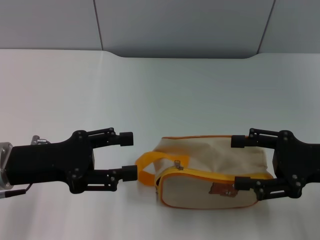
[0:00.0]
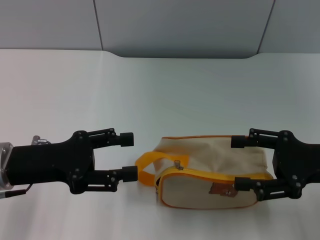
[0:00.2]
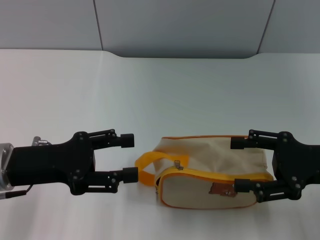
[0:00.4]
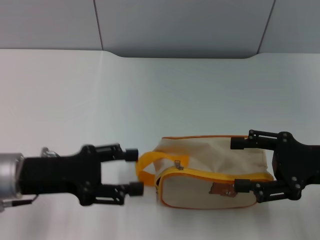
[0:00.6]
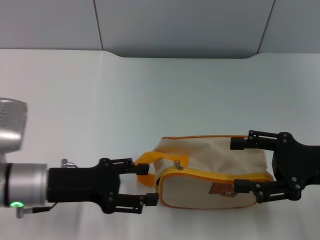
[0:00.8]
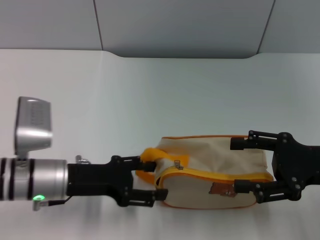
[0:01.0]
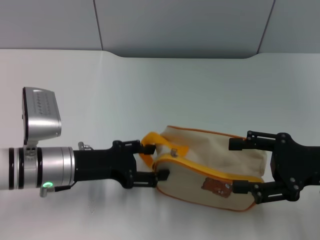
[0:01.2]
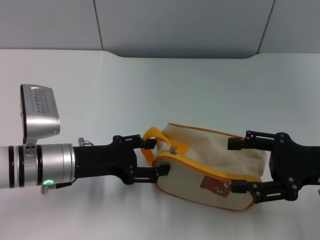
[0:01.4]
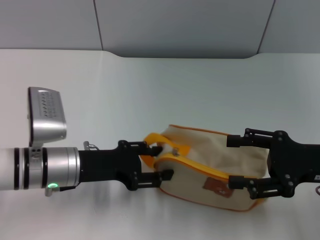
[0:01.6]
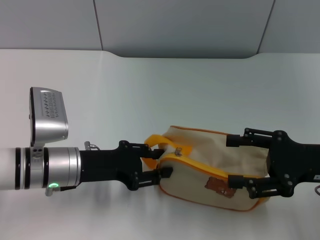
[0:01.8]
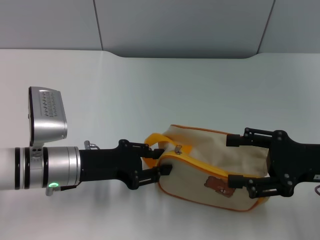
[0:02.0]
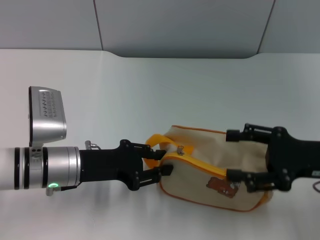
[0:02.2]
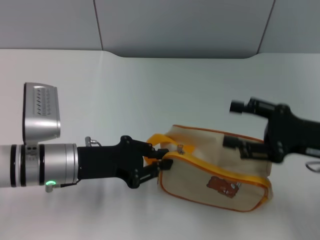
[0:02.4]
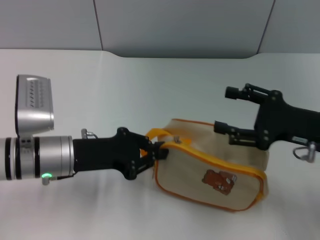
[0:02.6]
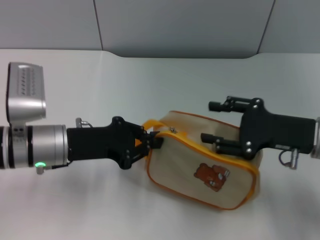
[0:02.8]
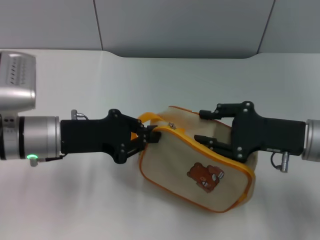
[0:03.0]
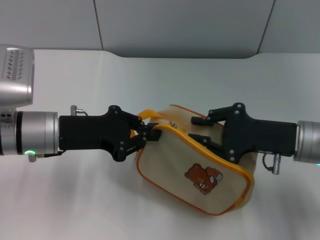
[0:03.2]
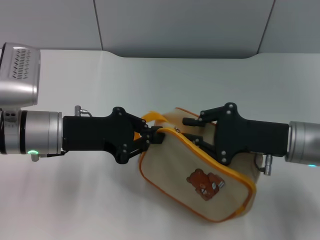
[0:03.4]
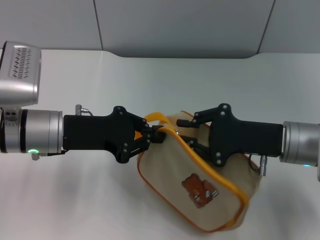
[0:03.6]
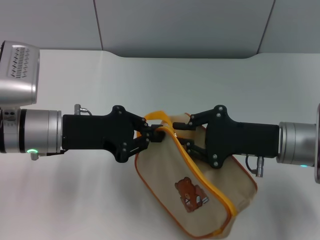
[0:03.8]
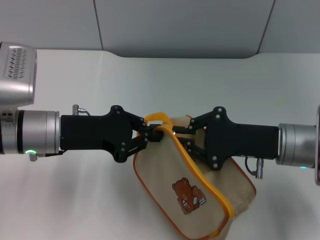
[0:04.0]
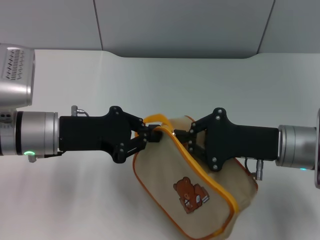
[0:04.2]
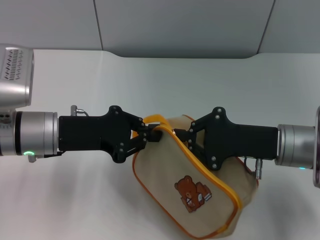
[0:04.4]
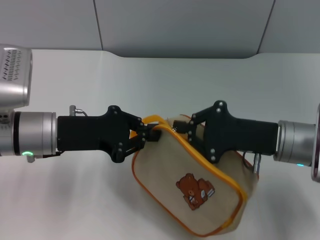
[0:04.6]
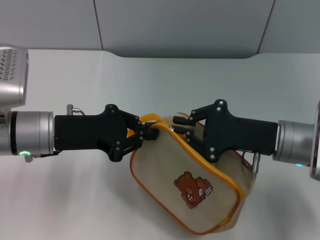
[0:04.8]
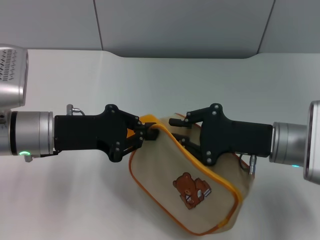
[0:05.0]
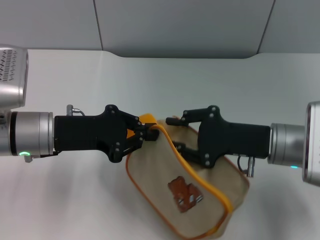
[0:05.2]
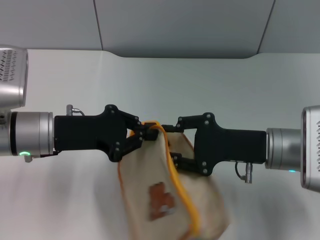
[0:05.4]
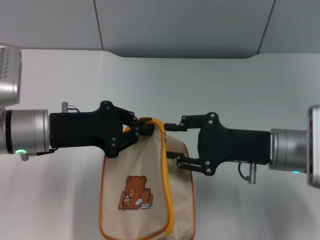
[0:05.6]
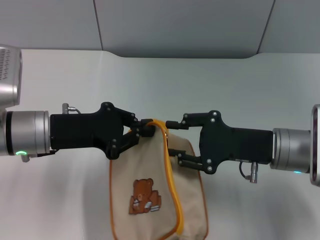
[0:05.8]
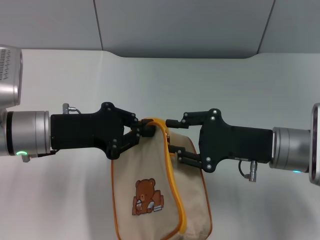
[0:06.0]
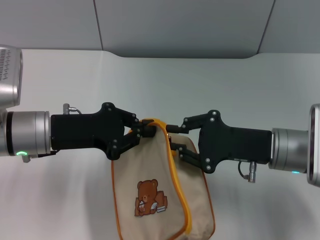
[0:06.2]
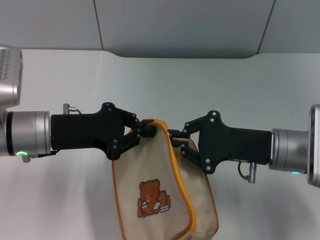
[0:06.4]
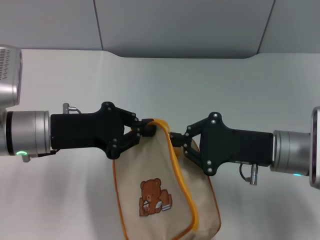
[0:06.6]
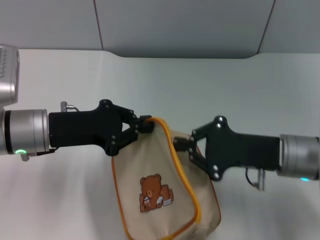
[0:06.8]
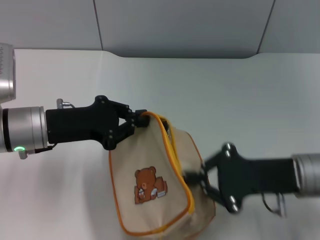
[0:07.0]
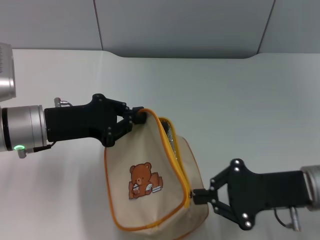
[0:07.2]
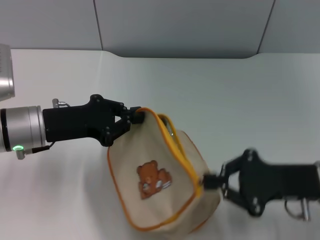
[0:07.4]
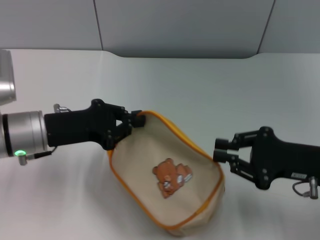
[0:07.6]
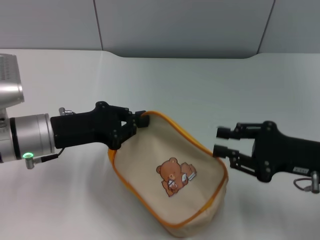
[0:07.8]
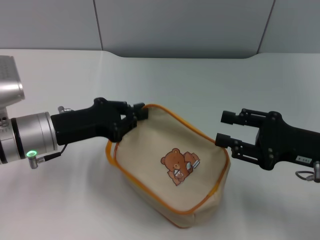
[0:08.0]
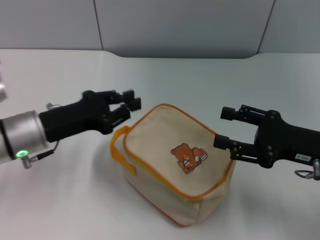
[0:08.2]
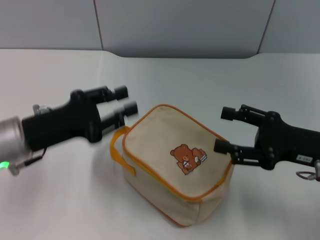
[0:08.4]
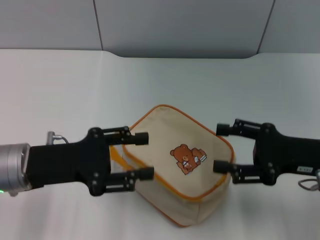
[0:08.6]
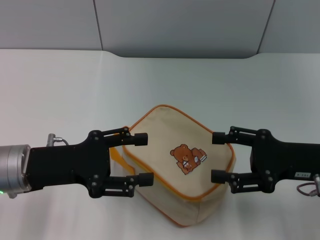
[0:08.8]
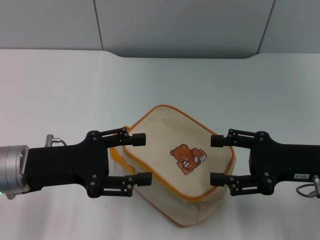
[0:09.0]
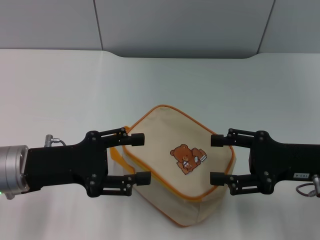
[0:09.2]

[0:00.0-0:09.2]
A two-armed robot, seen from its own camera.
Step, 0:00.0 to 0:02.8: Pick up the bag with left gripper.
Step, 0:03.2 to 0:07.8: Unzip the zipper of bag with right gripper.
0:00.0 to 0:01.6: The left gripper travels to the right and downward by roughly 10 cm.
0:01.6 to 0:03.0: The right gripper shifts by about 5 cm; the left gripper shifts by about 5 cm, and closes up.
0:03.0 to 0:04.6: The right gripper closes up.
0:04.6 to 0:06.2: The right gripper opens.
0:06.2 to 0:07.6: The right gripper moves to the right, about 5 cm, and closes its fingers.
0:07.6 to 0:09.2: The left gripper changes place by some 5 cm, and opens its fingers; the right gripper opens up.

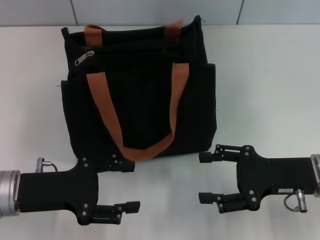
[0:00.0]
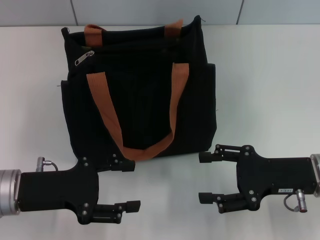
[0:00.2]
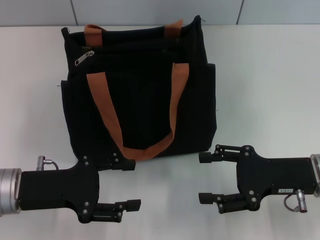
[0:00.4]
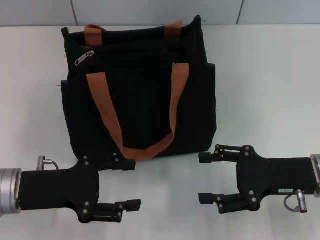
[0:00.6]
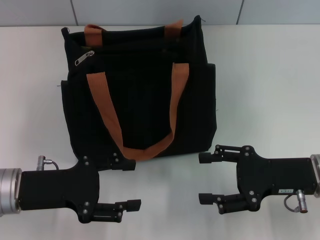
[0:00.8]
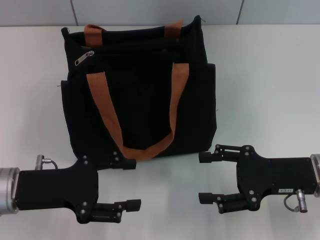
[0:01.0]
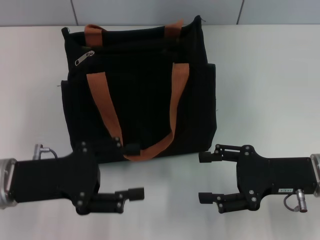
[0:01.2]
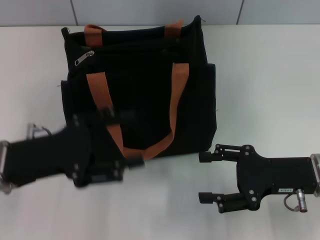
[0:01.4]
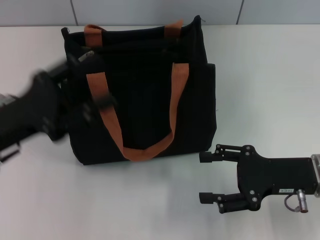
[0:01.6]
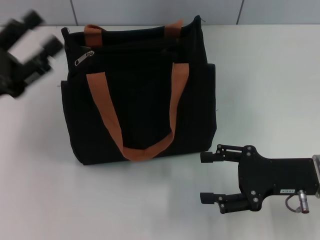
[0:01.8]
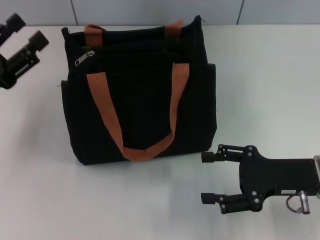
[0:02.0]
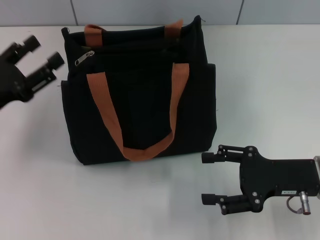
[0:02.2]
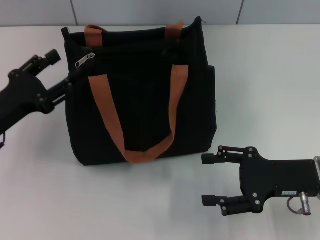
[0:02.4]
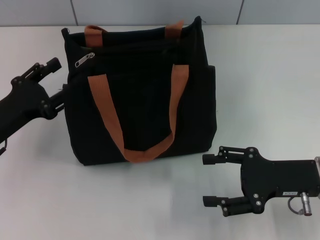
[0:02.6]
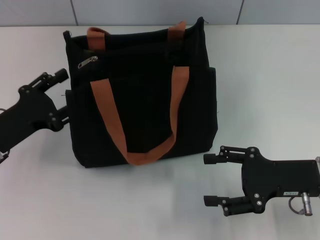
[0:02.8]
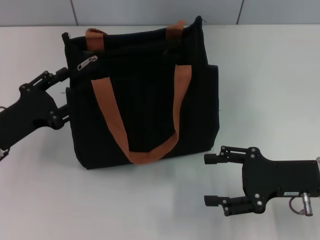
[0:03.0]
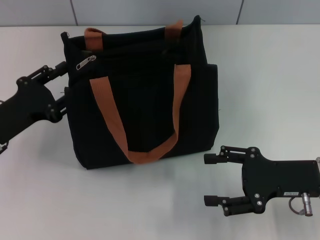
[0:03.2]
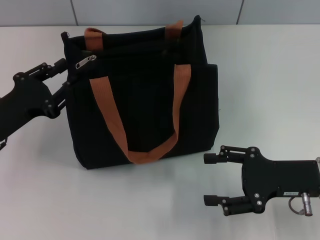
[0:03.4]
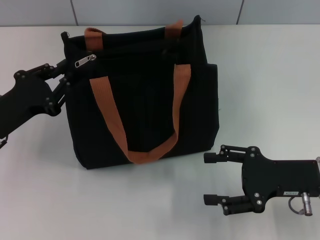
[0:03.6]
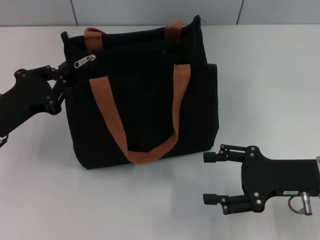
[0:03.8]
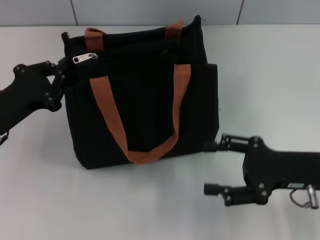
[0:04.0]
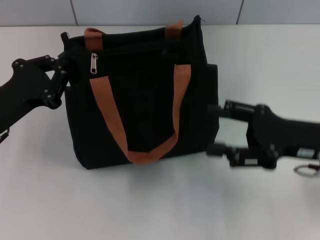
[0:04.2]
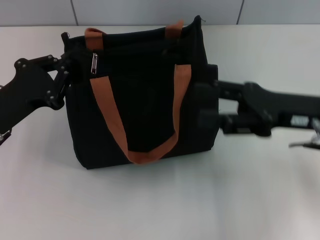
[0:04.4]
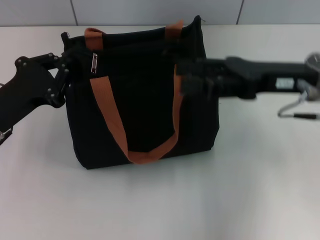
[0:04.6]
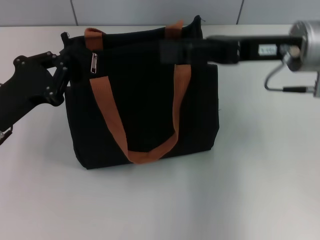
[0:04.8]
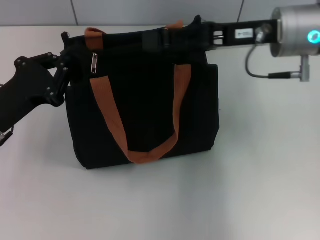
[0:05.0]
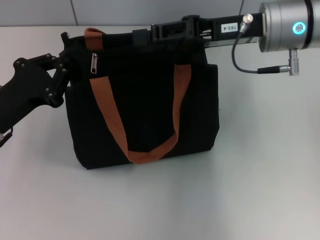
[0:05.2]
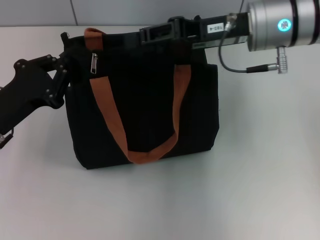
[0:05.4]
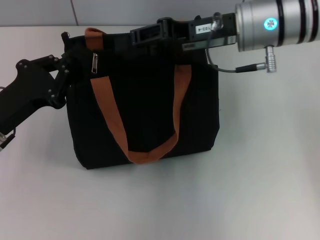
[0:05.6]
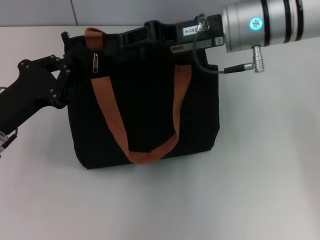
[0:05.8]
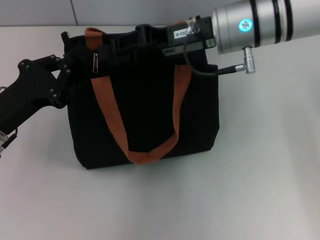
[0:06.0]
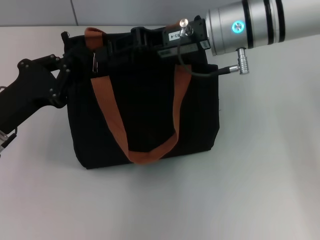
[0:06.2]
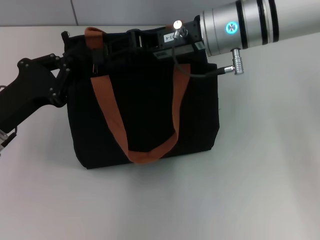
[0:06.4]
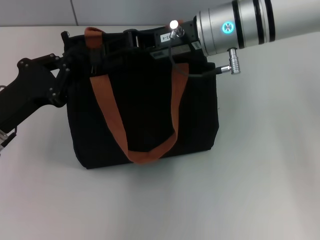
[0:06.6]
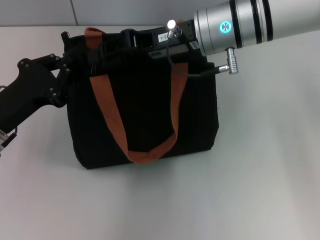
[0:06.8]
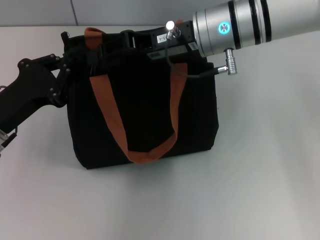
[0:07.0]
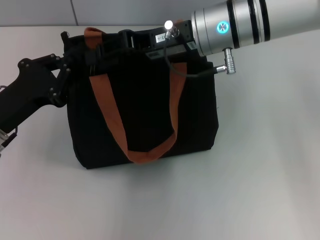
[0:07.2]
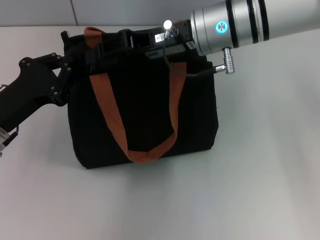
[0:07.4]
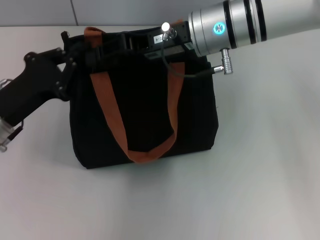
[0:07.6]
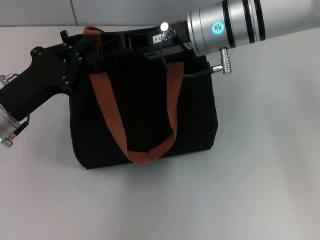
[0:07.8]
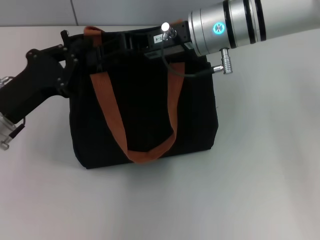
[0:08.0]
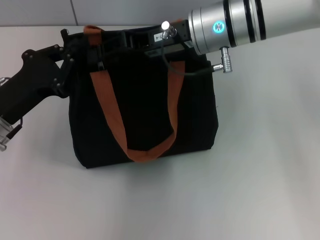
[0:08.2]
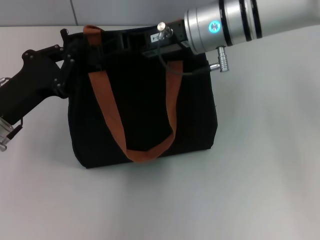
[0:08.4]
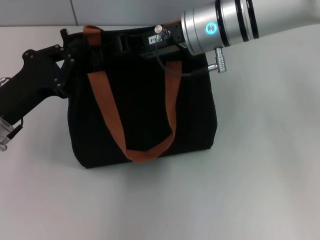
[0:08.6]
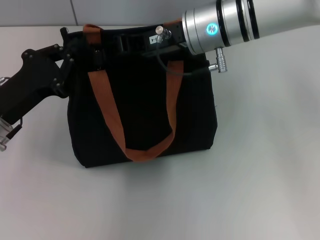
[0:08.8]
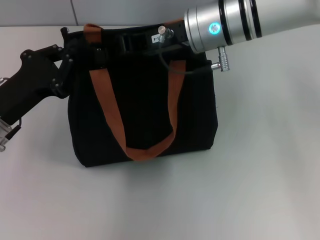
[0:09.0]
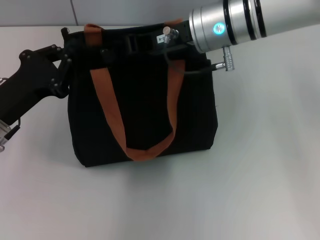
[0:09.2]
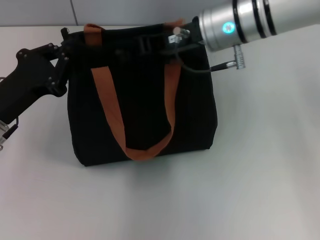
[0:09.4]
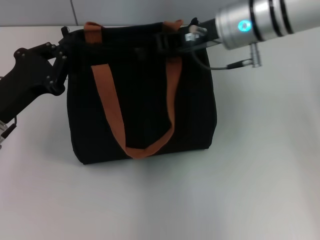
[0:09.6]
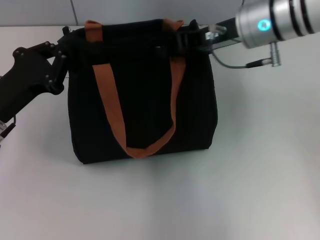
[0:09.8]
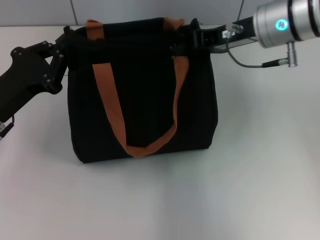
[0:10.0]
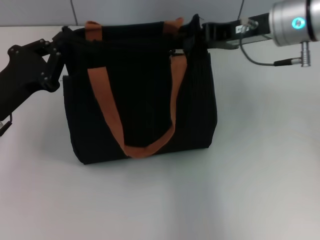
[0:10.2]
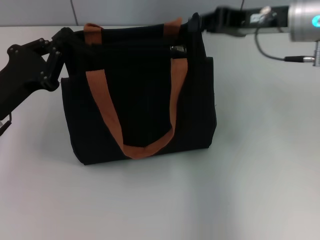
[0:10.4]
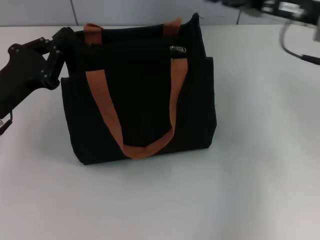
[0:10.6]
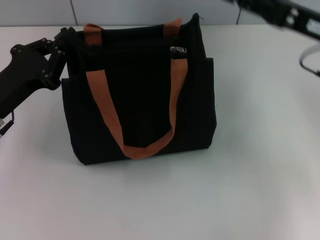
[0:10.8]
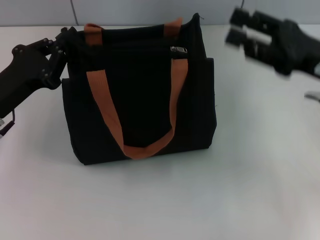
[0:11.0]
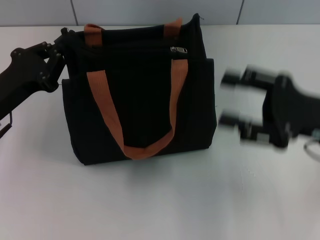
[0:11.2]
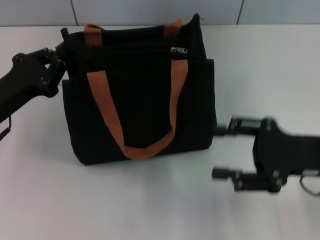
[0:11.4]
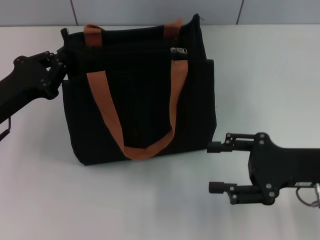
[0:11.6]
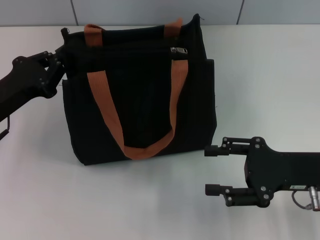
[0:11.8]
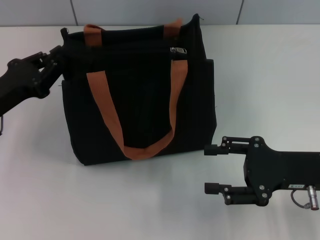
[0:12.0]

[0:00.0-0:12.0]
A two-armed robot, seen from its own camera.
Step, 0:00.0 to 0:10.4: Pull up the zipper with your right hand.
0:00.0 to 0:01.6: The left gripper moves roughly 5 cm.
0:01.6 to 0:03.0: The left gripper goes about 5 cm downward.
0:03.0 to 0:04.4: The right gripper is displaced upward by some 5 cm. The left gripper closes up.
0:04.4 to 0:06.0: The right gripper moves to the left, forward and upward, about 15 cm, and closes up.
0:06.0 to 0:07.6: The grippers stay close to where they were, moving slightly.
0:07.6 to 0:09.0: The right gripper closes.
0:09.0 to 0:10.4: The right gripper shifts approximately 15 cm to the right.
0:10.4 to 0:12.0: The right gripper moves backward and downward, about 20 cm, and opens.

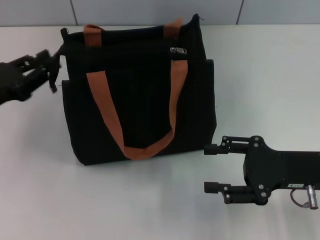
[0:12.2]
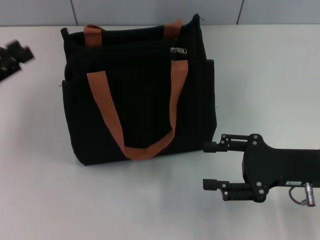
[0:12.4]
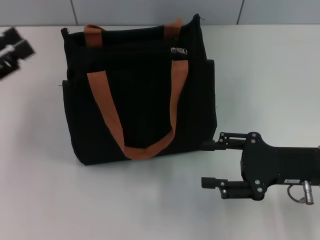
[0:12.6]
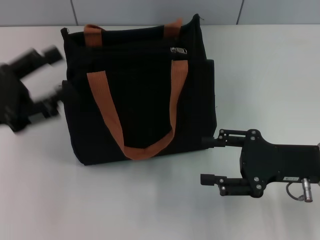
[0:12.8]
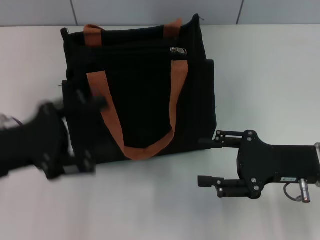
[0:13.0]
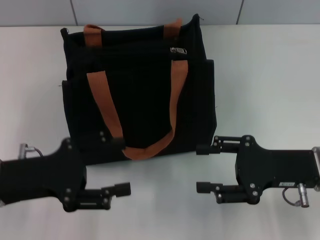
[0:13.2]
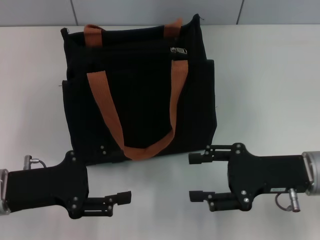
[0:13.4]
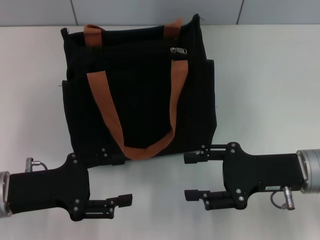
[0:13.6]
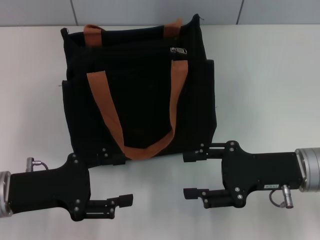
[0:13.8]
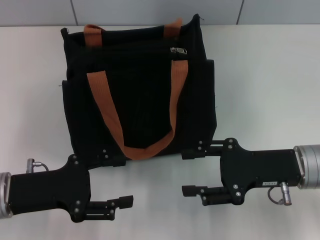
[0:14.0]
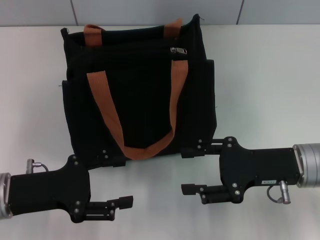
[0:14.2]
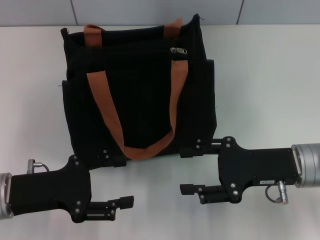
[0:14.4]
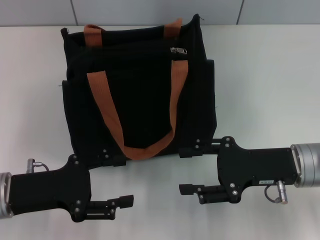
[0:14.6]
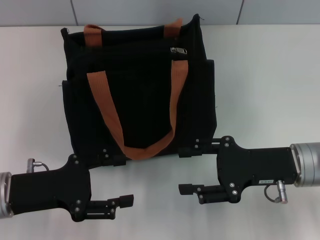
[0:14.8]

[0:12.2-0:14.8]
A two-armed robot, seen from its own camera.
0:12.2 to 0:13.4: The left gripper moves backward and to the right, approximately 10 cm, and opens up.
0:13.4 to 0:14.8: The grippers make only small movements.
